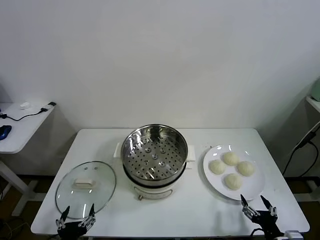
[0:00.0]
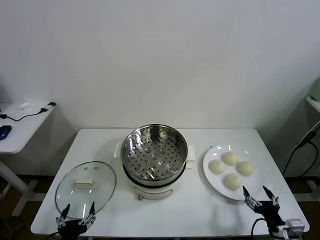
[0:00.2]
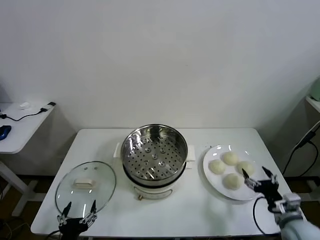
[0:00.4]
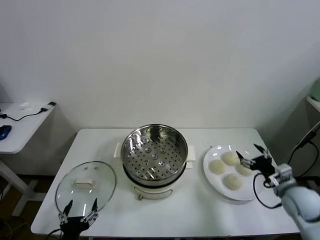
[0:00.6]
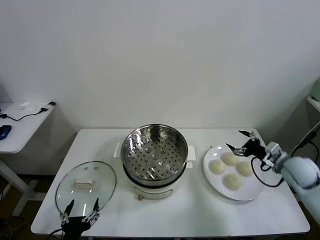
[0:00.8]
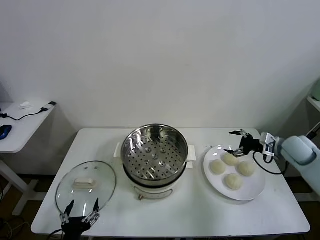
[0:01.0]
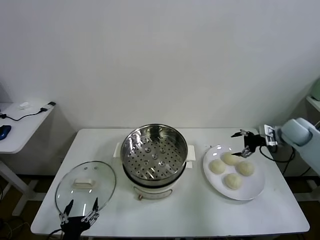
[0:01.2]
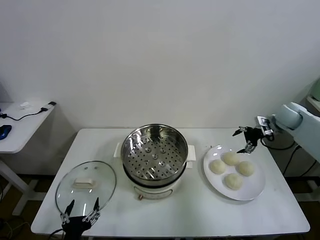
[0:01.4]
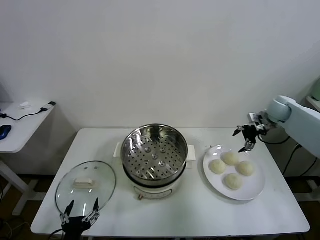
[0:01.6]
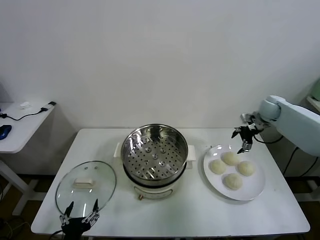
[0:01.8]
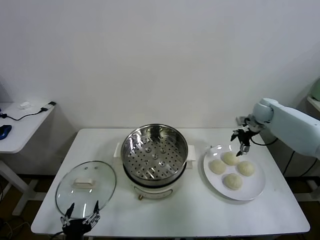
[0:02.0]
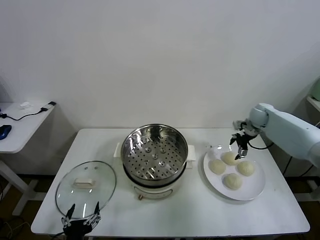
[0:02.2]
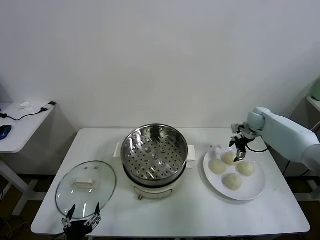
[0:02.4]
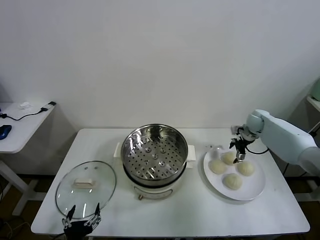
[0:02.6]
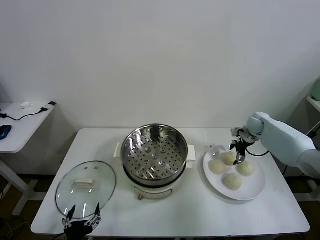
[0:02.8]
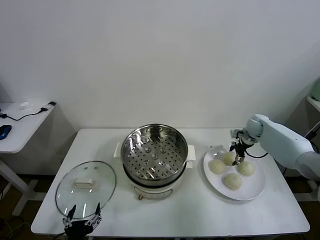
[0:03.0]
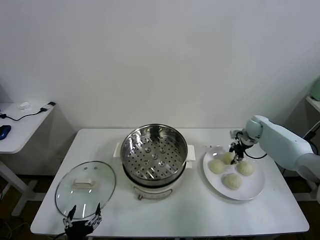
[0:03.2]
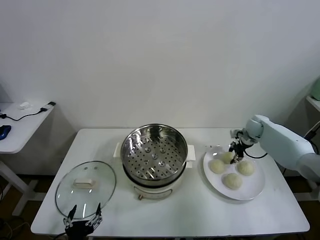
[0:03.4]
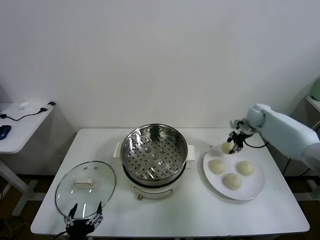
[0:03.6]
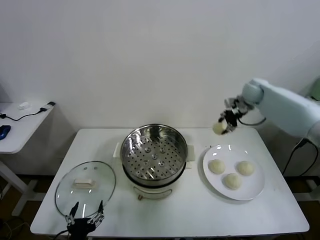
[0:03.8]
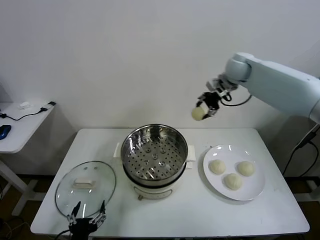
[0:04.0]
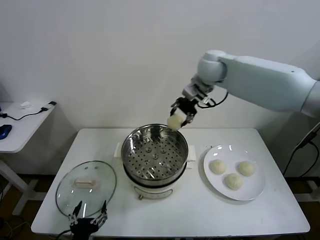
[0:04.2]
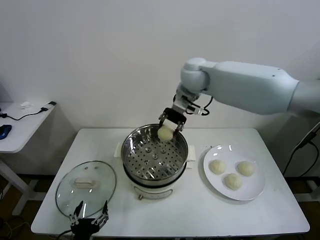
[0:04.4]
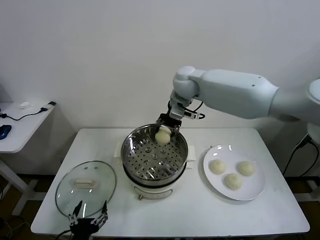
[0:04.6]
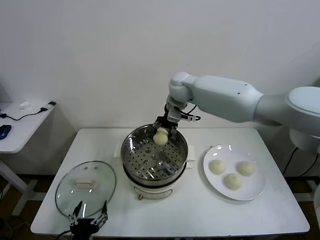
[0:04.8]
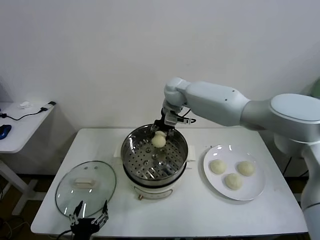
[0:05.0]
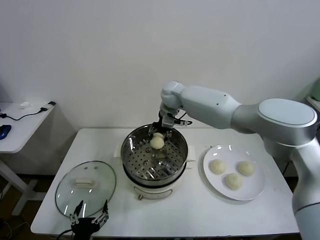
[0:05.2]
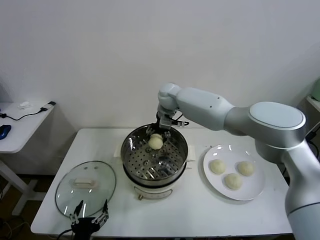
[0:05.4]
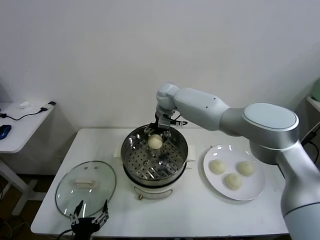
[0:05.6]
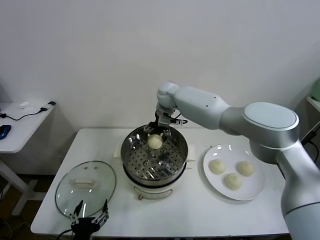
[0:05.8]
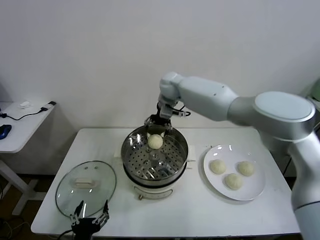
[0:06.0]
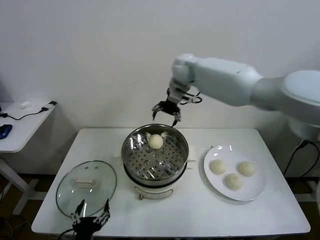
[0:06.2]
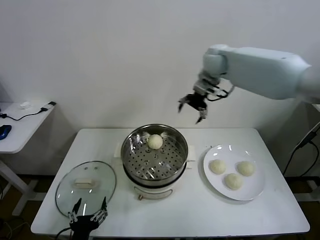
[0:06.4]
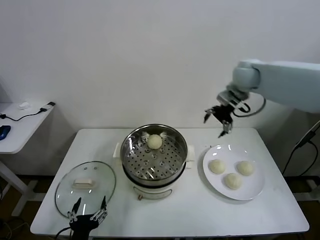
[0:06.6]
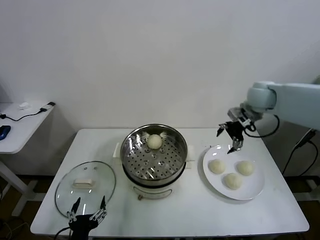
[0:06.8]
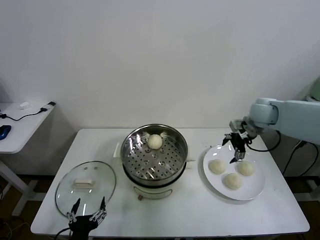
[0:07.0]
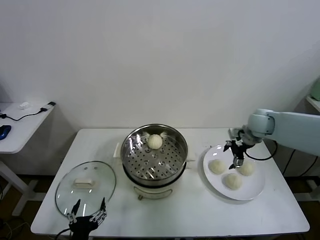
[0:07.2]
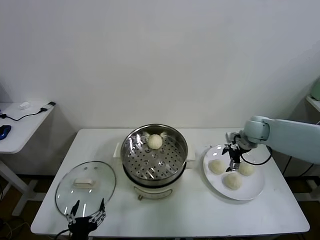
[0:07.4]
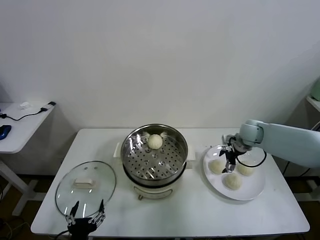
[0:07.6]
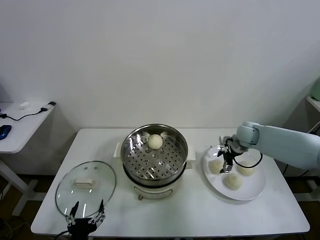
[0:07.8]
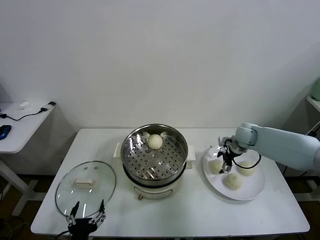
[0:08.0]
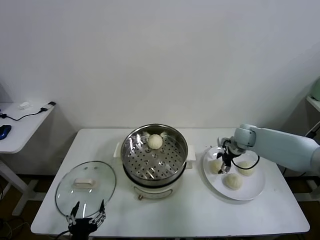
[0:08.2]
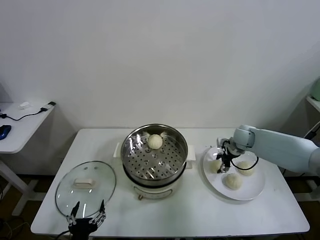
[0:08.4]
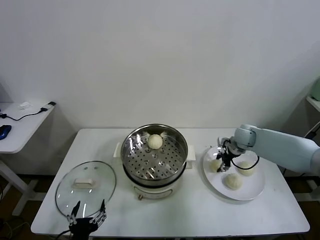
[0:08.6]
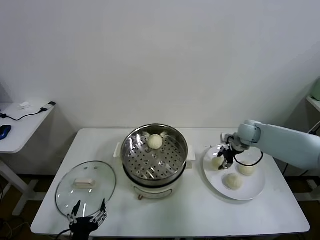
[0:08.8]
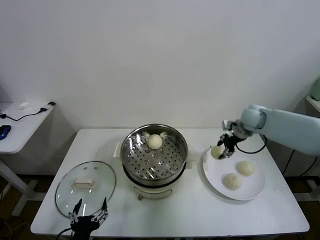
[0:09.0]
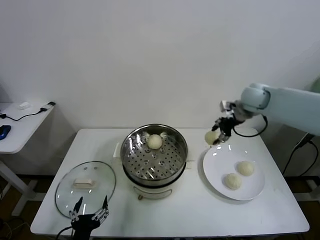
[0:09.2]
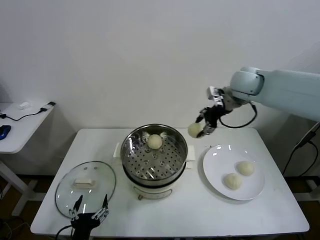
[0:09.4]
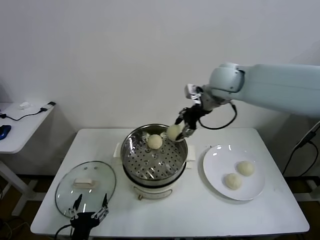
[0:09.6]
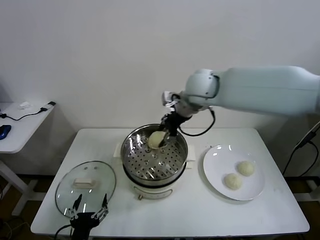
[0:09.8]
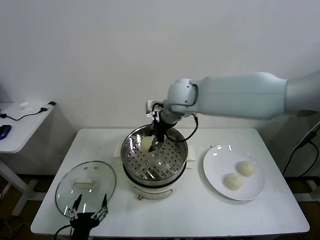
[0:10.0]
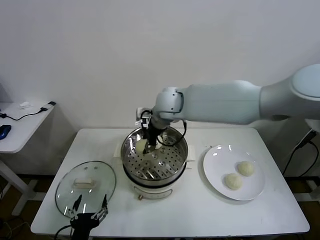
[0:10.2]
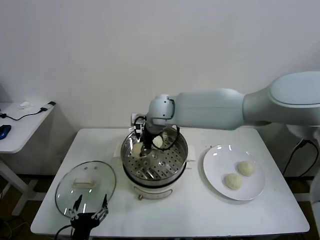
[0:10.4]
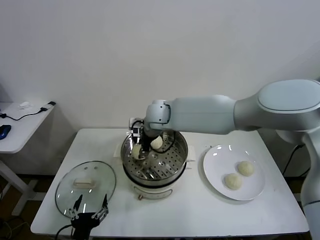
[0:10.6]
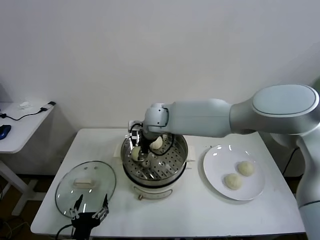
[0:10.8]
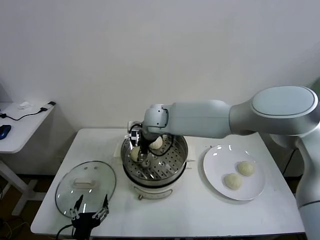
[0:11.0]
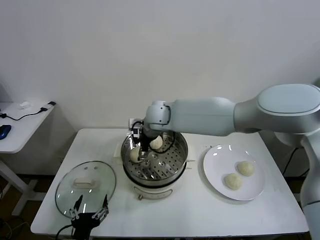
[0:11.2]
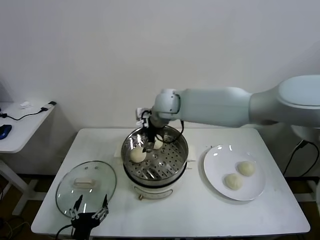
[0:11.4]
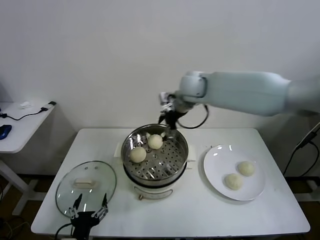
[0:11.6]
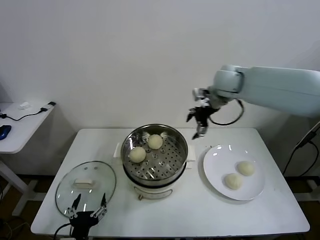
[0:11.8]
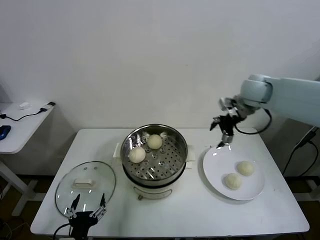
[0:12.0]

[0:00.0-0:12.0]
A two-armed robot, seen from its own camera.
Task of the whole recording: take steamed baozi put them in steamer.
Step, 0:00.0 to 0:03.0: Grasp the baozi in the plate with right gripper.
Step, 0:03.2 to 0:05.8: Place the baozi on the steamer with right gripper.
Step, 0:06.0 to 0:08.2: Grasp the baozi in the plate with right gripper.
Step, 0:08.6 to 0:11.2: Place the baozi on the steamer with right gripper.
0:01.6 to 0:03.0: The right gripper shifts some 10 cm downward, and closes up.
0:03.0 to 0:04.4: The right gripper heads to the left and upward, covering approximately 40 cm.
0:04.4 to 0:06.0: The right gripper goes some 5 cm forward, moves roughly 10 cm downward and comes back, and opens up.
0:06.0 to 0:07.6: The right gripper moves to the right and downward, about 35 cm.
0:07.6 to 0:09.0: The right gripper goes roughly 10 cm upward, and closes up.
0:09.0 to 0:10.4: The right gripper shifts approximately 35 cm to the left.
0:10.4 to 0:12.0: The right gripper heads to the right, covering approximately 30 cm, and opens.

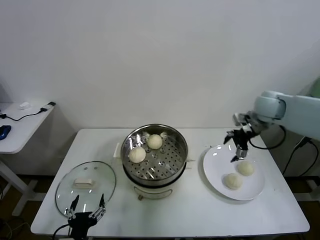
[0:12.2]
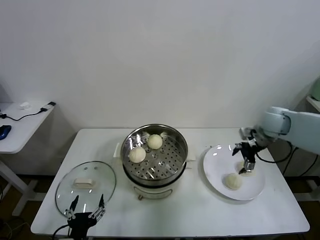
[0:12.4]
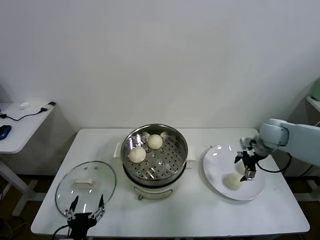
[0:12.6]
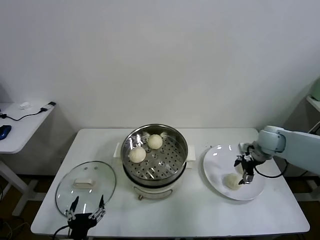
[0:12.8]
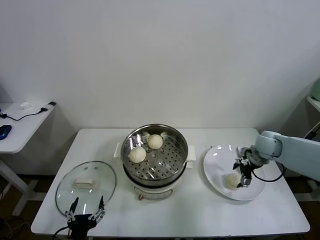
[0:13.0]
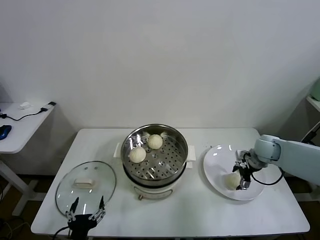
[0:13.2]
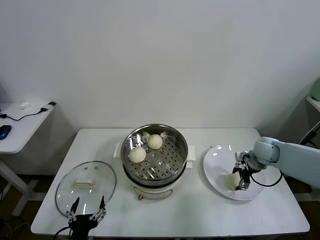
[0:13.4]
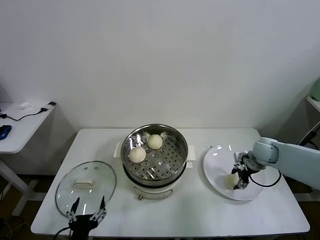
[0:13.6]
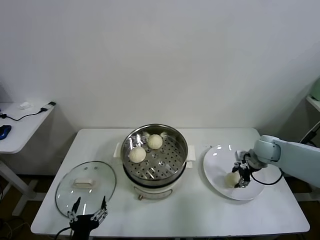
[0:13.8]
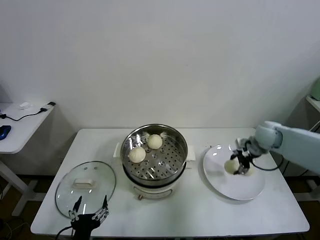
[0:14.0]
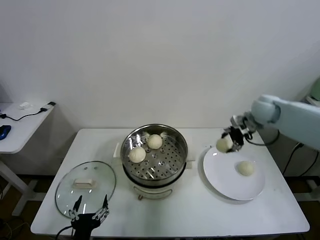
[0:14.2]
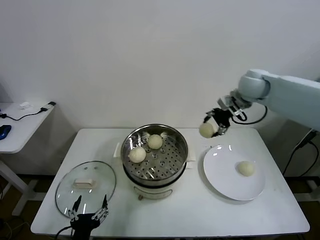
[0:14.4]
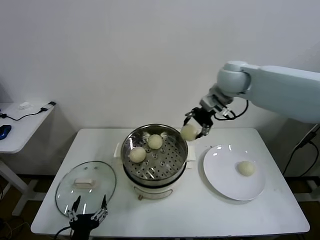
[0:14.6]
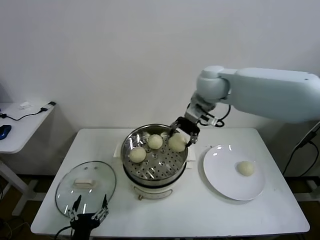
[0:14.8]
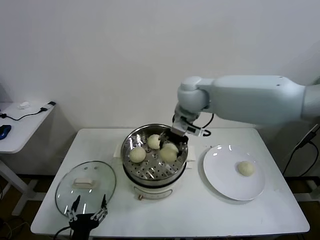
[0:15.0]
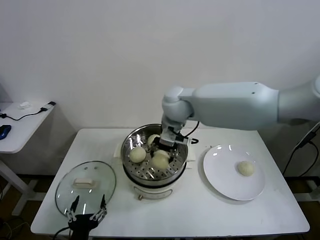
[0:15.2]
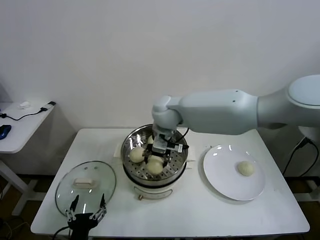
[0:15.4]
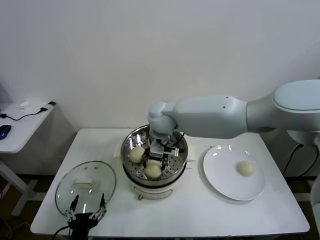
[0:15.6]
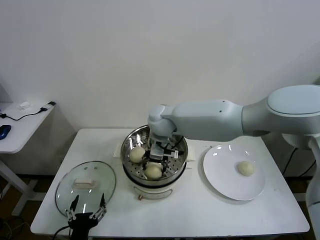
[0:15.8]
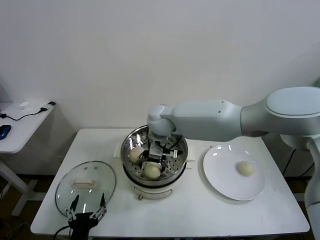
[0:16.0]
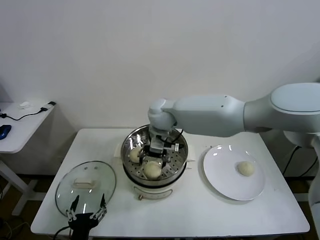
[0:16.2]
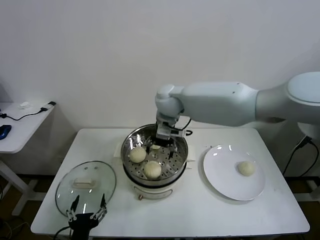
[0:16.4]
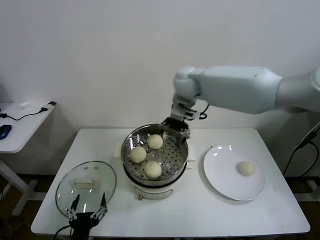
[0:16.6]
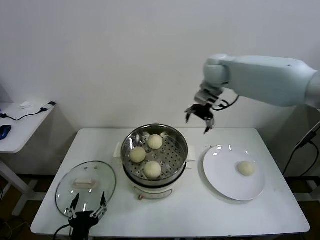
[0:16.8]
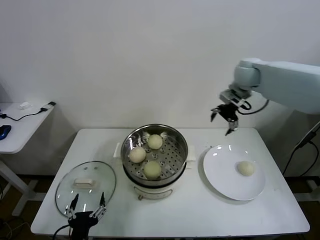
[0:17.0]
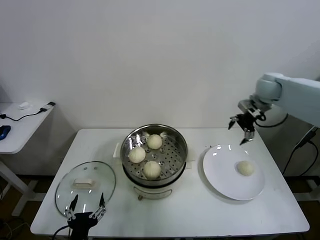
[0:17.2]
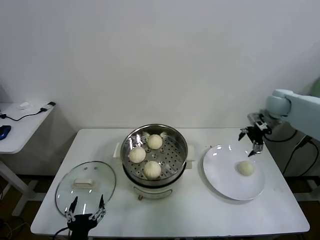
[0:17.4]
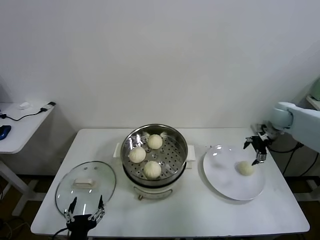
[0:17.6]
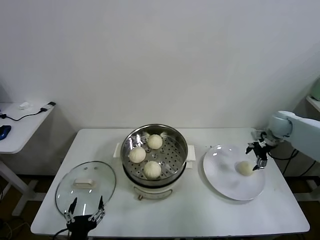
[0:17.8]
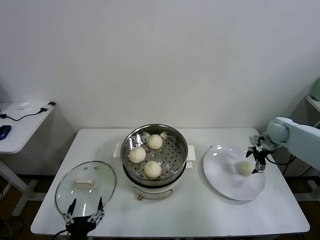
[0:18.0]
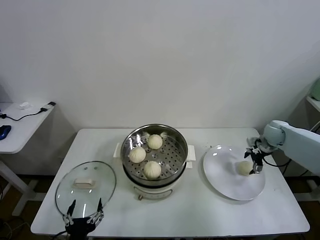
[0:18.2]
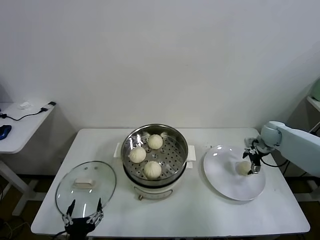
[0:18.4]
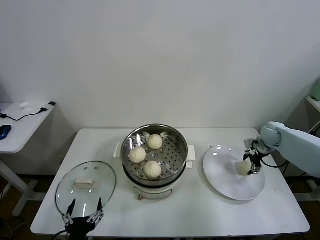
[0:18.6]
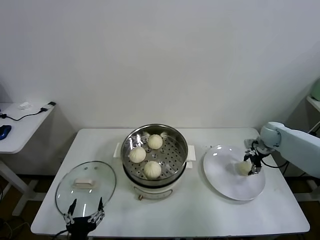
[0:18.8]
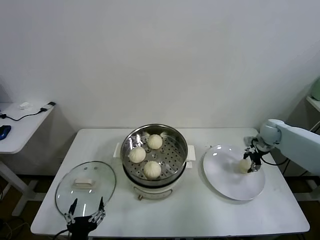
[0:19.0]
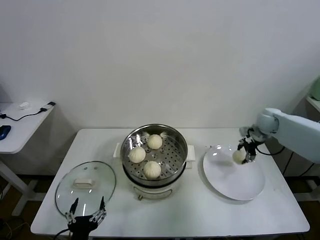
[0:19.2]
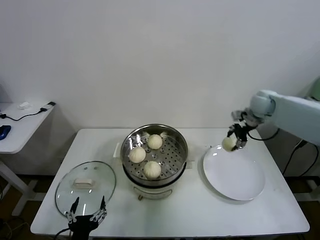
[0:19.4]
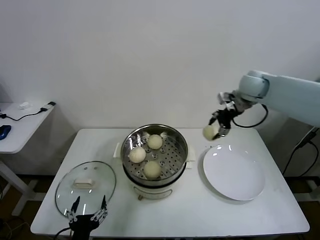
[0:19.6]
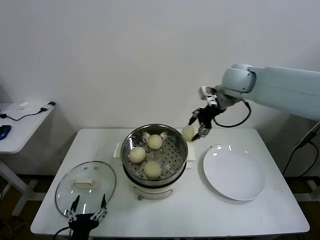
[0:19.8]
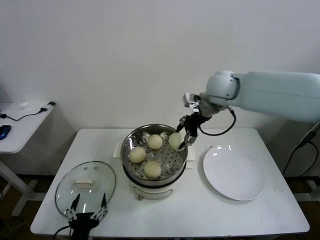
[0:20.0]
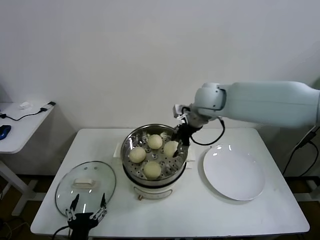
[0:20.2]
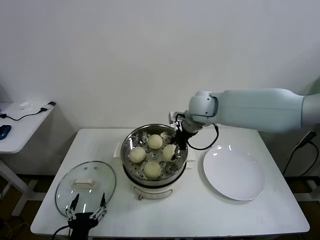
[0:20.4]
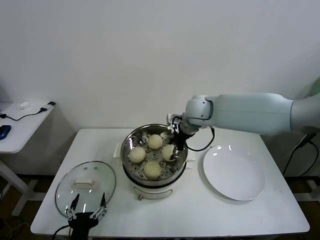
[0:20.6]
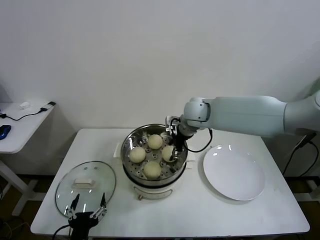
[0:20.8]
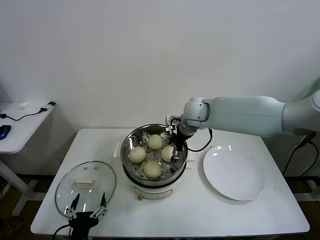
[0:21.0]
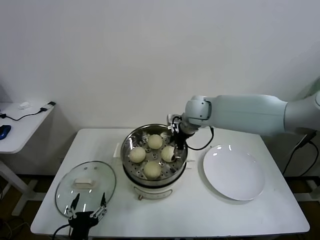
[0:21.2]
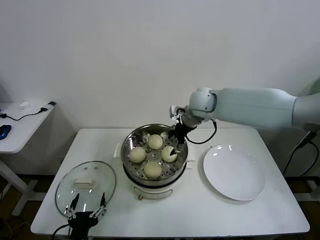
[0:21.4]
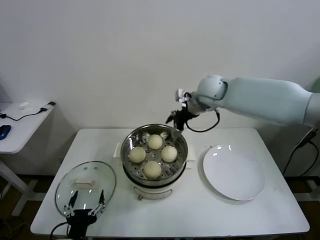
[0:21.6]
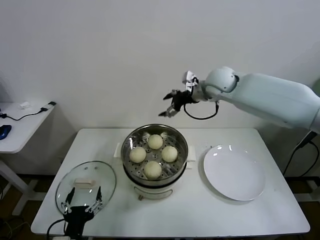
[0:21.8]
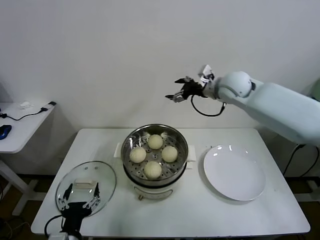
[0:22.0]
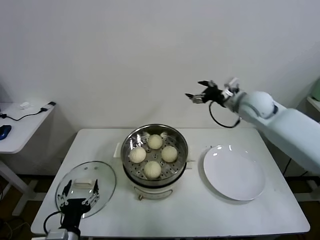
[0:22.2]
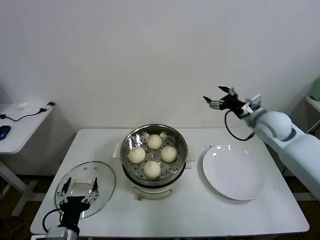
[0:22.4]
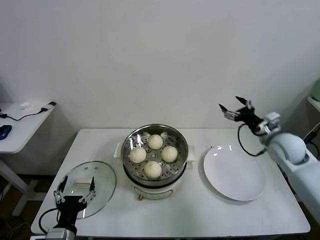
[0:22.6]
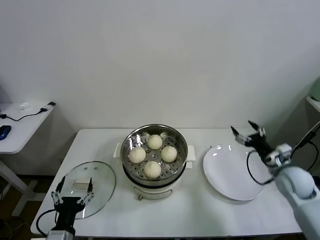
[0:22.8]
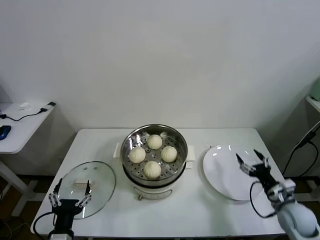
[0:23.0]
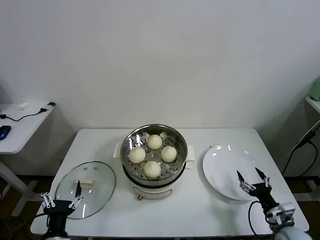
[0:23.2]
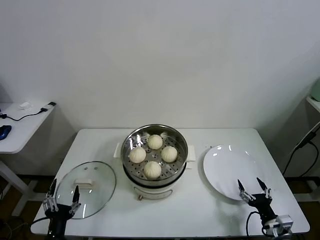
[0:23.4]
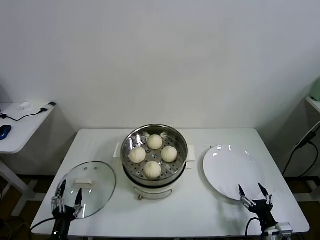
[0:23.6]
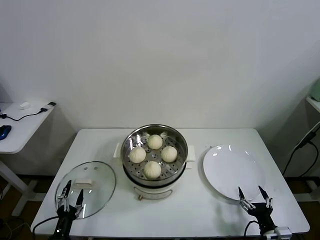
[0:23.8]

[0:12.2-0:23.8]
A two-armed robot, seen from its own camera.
Task of the whole recording: take steamed baozi put them in steamer.
Step, 0:12.2 to 0:13.4: Grasp the baozi in the plate with right gripper.
Step, 0:13.6 to 0:16.2: Place the baozi on the steamer with right gripper.
Step, 0:16.4 to 0:18.8: Grasp the baozi in the plate with right gripper.
Step, 0:19.0 to 0:21.0: Place the baozi on the steamer with right gripper.
0:12.2 to 0:13.6: The right gripper is displaced downward by some 15 cm, and closes.
0:13.6 to 0:15.0: The right gripper heads to the left and upward, covering some 40 cm.
0:15.0 to 0:16.6: The right gripper goes about 5 cm forward, goes downward and returns, approximately 10 cm each way, and opens up.
0:16.6 to 0:18.0: The right gripper moves to the right and downward, about 40 cm.
0:18.0 to 0:19.4: The right gripper travels upward and to the left by roughly 15 cm, and closes.
0:19.4 to 0:21.0: The right gripper goes roughly 25 cm to the left, and opens.
0:21.0 to 0:22.4: The right gripper travels to the right by roughly 20 cm.
0:22.4 to 0:23.8: The right gripper shifts some 40 cm backward and downward; the left gripper goes roughly 15 cm downward and to the left.
